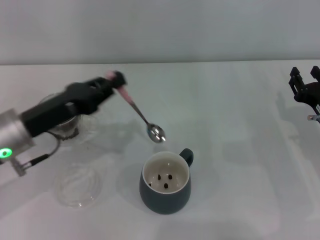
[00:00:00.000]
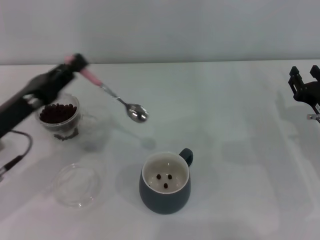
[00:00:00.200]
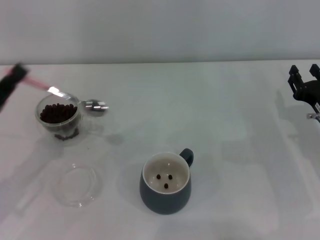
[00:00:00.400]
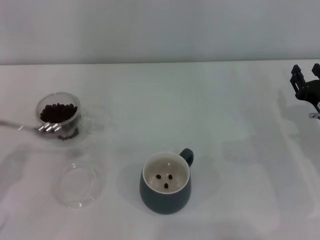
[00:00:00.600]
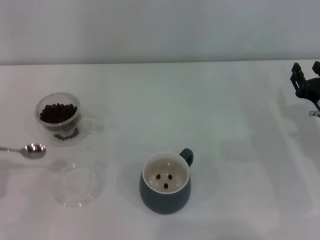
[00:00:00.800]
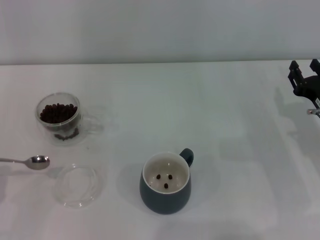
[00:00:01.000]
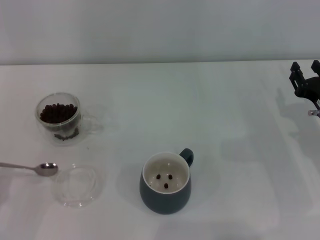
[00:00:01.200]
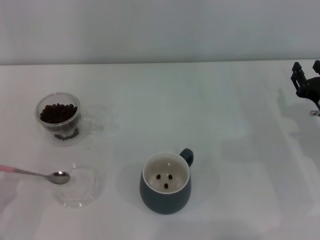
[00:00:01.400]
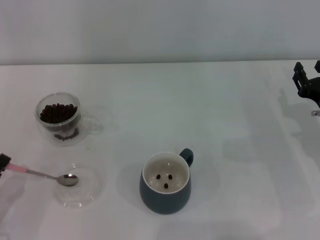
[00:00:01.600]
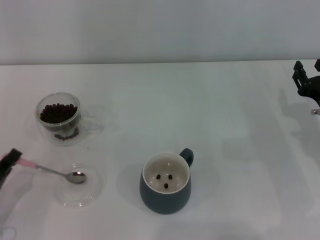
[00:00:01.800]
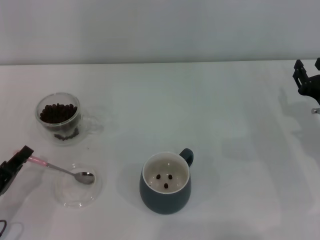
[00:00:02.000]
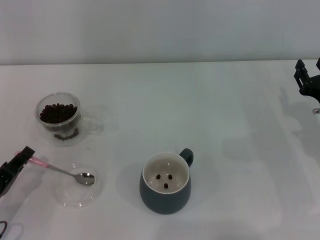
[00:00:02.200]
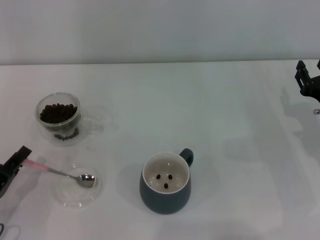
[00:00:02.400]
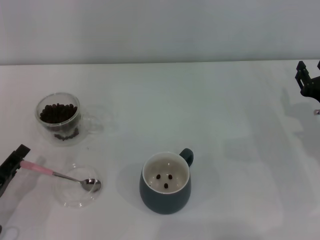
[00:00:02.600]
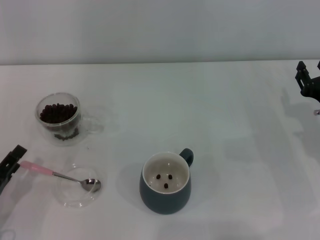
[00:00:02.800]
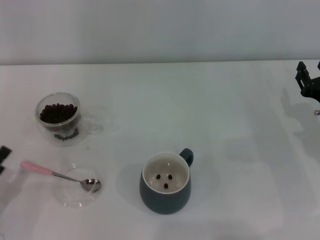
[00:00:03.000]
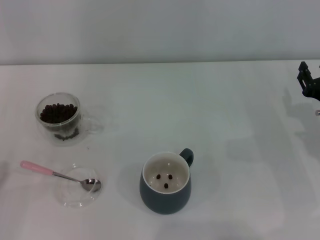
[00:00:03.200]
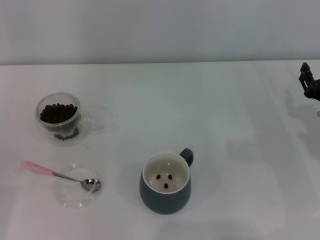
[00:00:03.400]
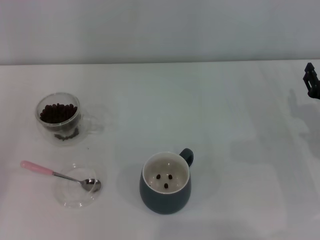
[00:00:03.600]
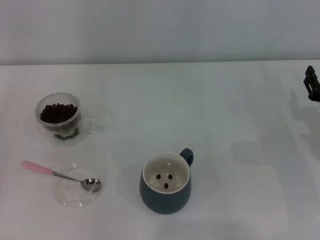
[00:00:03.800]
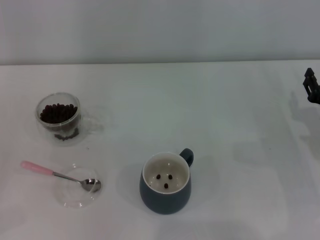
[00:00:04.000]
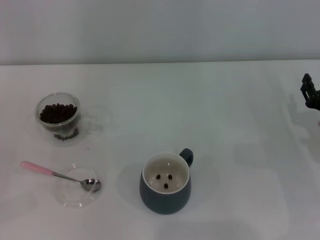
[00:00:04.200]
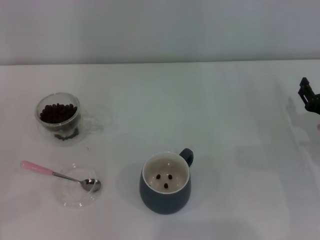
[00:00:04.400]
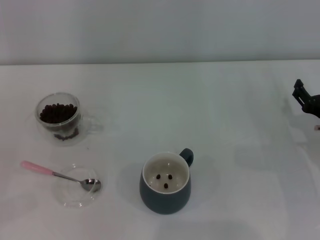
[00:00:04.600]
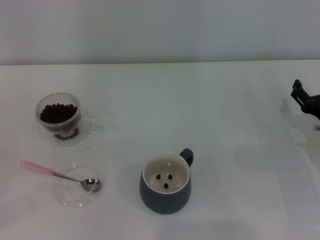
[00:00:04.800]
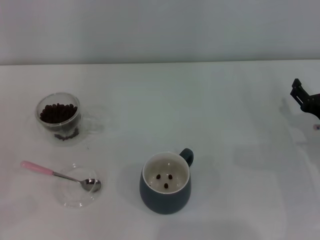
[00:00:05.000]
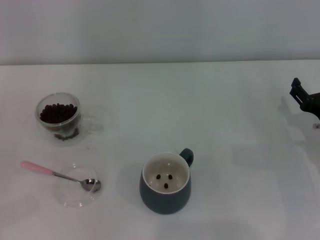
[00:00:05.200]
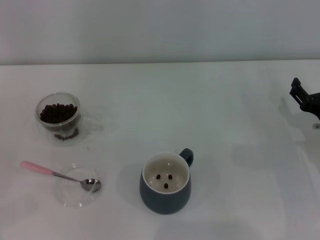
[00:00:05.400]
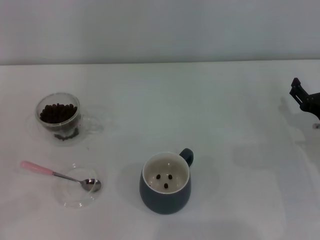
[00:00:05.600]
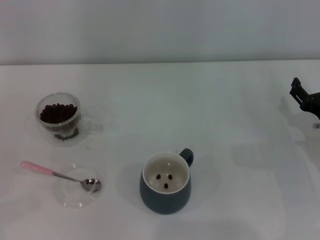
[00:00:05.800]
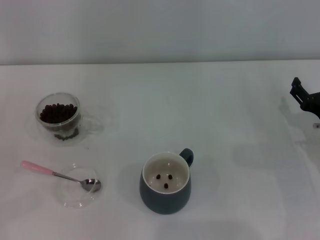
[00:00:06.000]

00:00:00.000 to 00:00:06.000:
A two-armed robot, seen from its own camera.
Task of the whole recording: Use a pink spoon to take out the coffee beans from the glass and pour them into the gray cup.
00:00:00.000 to 00:00:01.600: The left gripper goes about 20 cm backward, downward and to the left.
00:00:01.600 to 00:00:03.000: The left gripper opens its fingers.
00:00:04.400 to 00:00:06.000: The right gripper opens its fingers.
